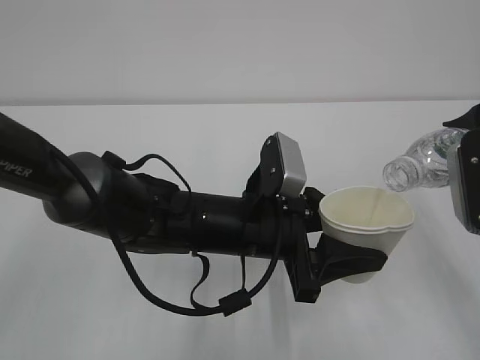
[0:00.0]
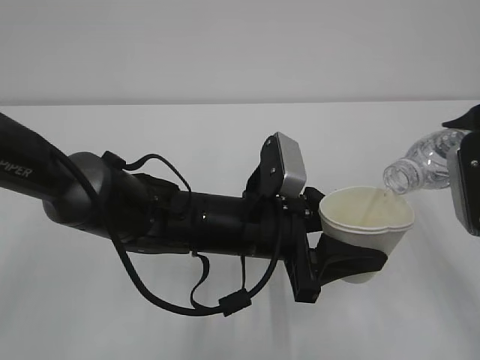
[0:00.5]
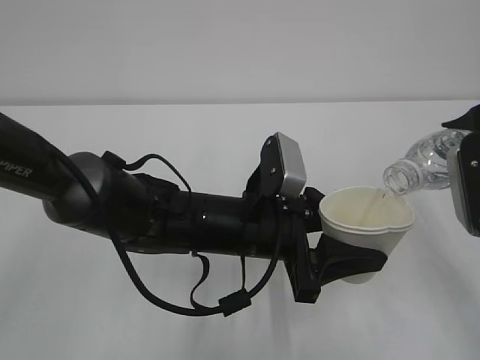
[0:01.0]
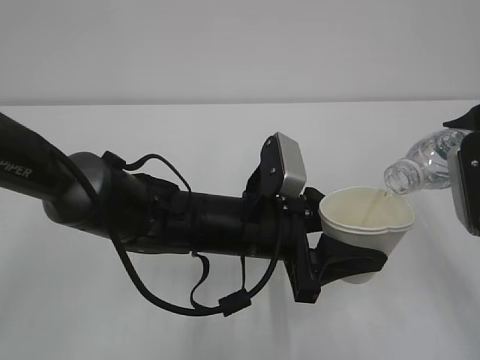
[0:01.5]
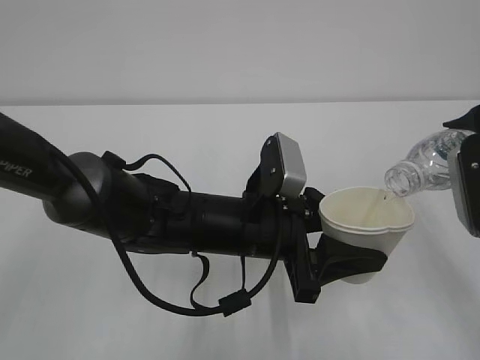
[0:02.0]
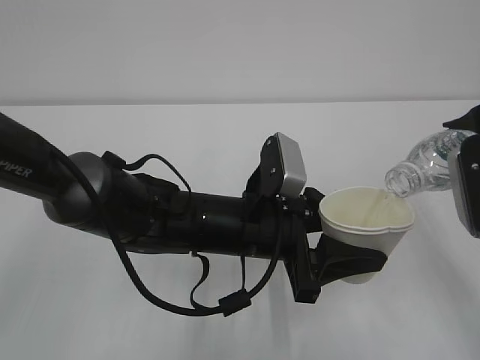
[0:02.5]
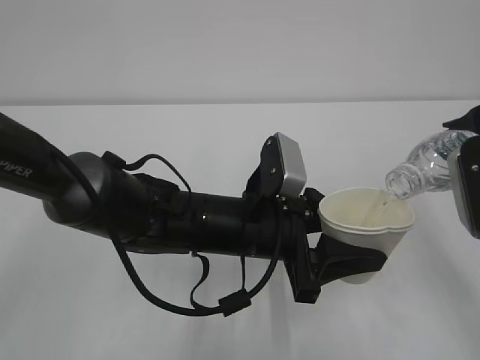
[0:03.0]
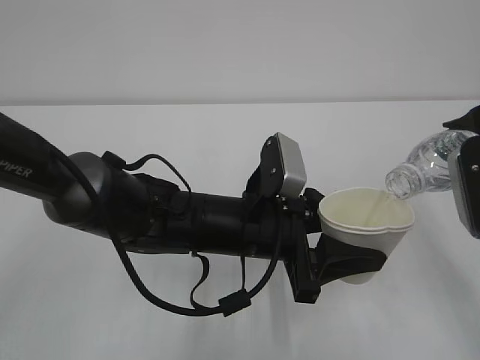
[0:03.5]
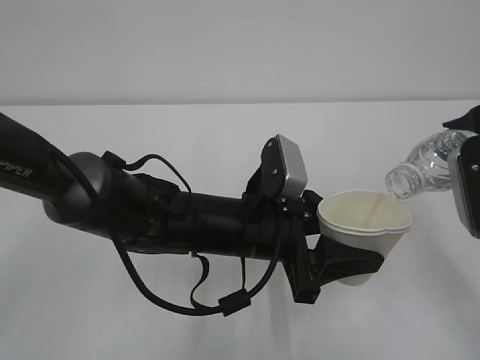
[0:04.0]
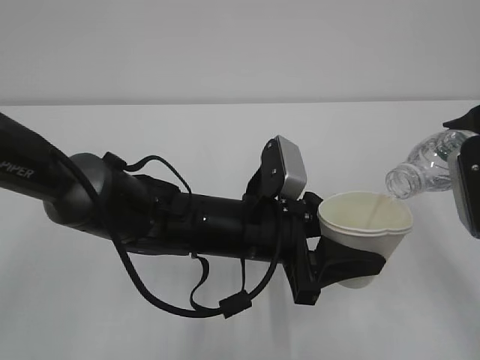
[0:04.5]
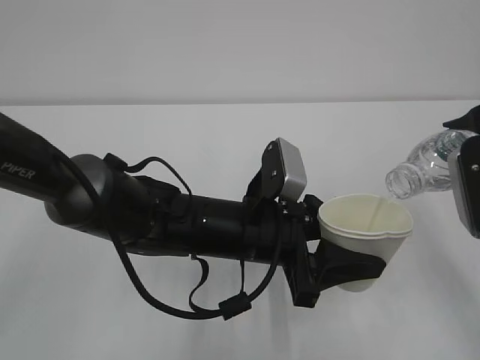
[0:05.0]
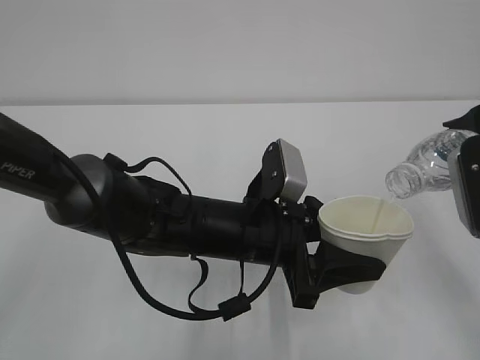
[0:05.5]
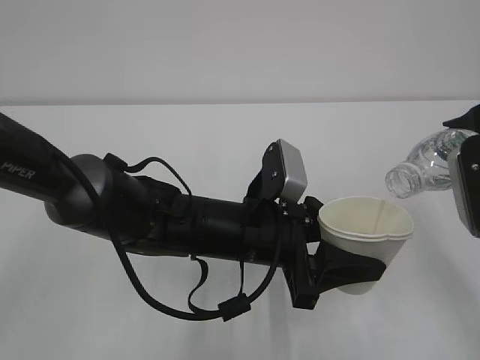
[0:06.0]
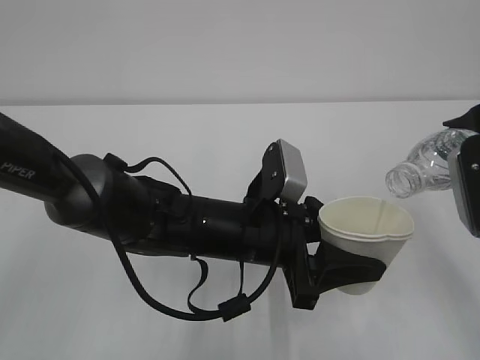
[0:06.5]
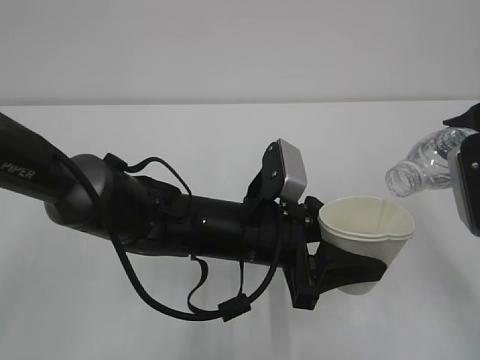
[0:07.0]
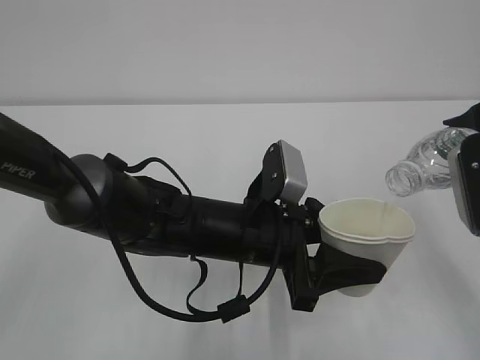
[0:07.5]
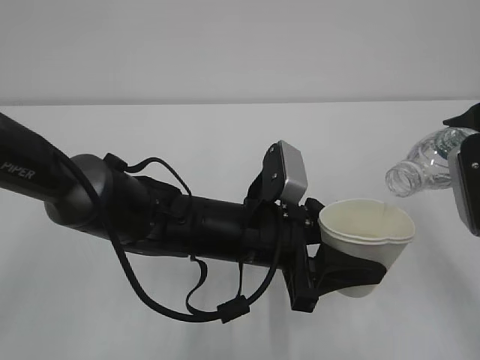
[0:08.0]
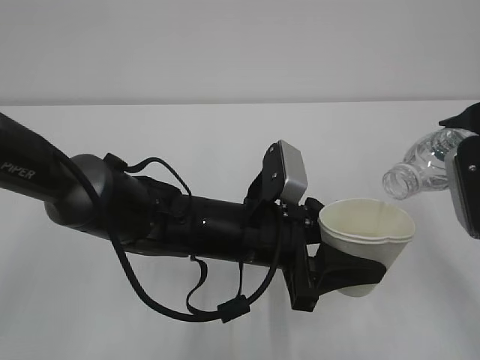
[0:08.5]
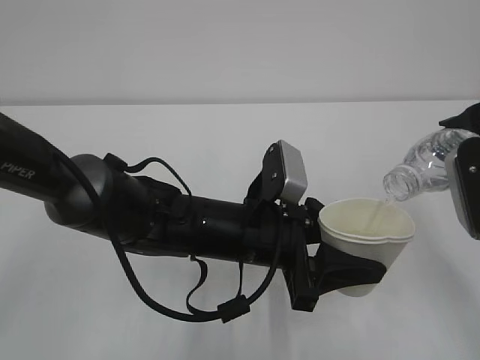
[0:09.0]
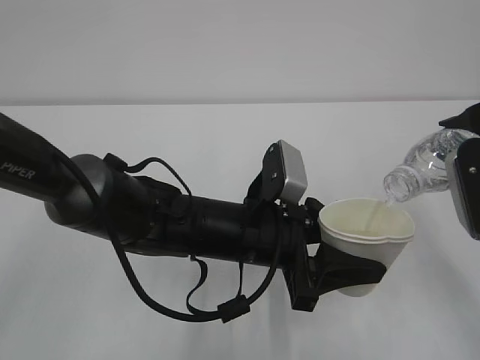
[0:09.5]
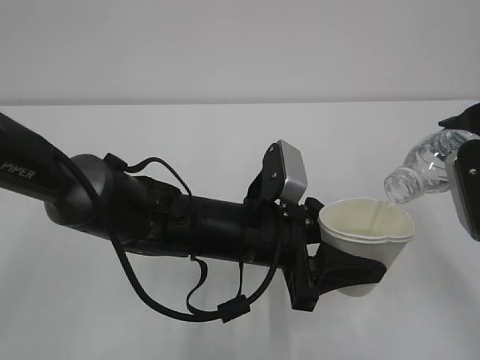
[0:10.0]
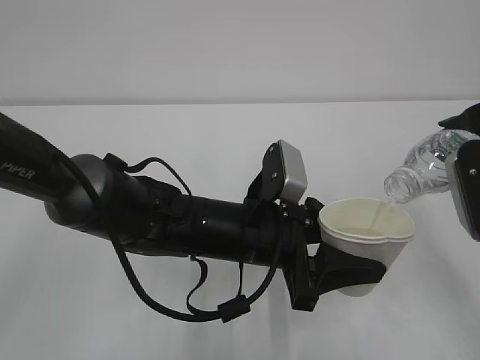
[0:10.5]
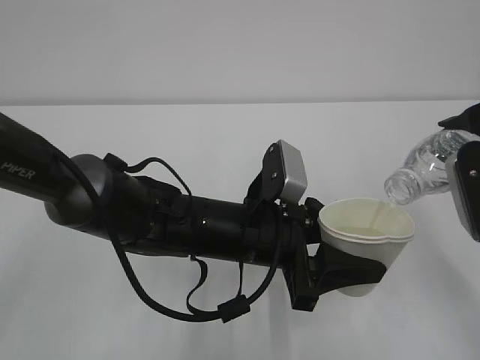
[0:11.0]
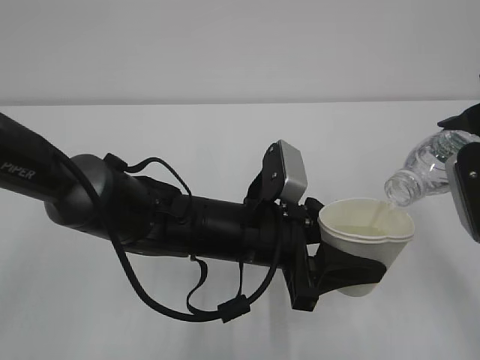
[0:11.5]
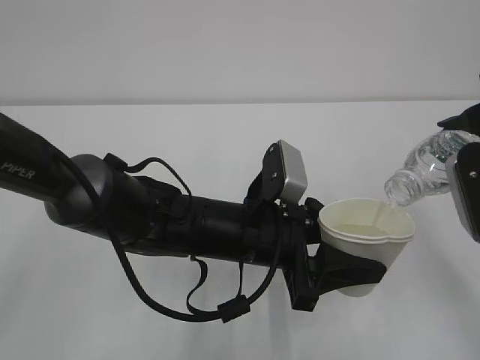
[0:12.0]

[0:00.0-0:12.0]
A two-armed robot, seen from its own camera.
0:00.0 to 0:08.0: Both grippers stay about where they are.
0:08.0 to 0:12.0: Neither gripper changes place.

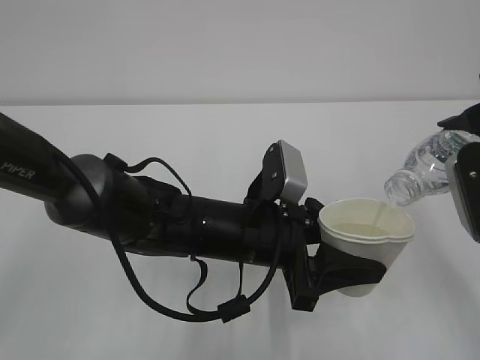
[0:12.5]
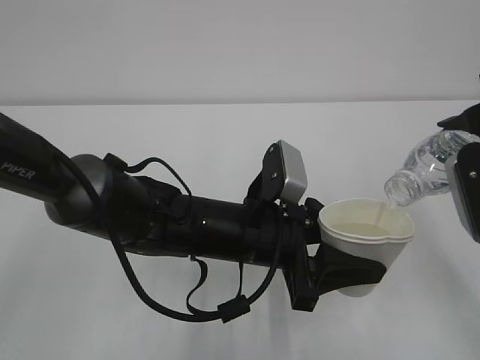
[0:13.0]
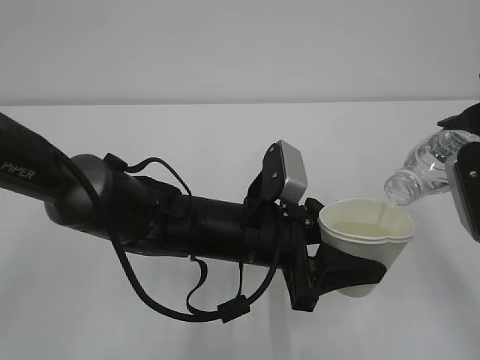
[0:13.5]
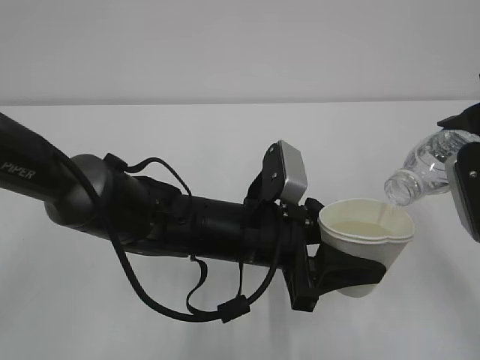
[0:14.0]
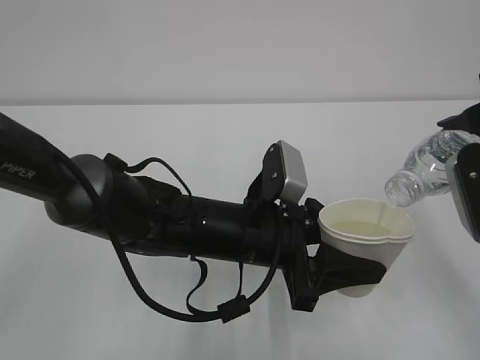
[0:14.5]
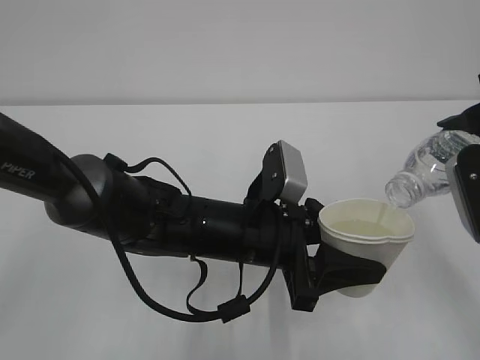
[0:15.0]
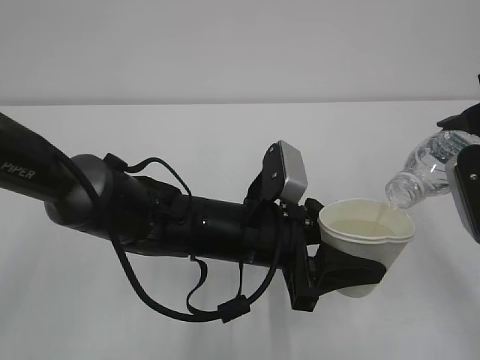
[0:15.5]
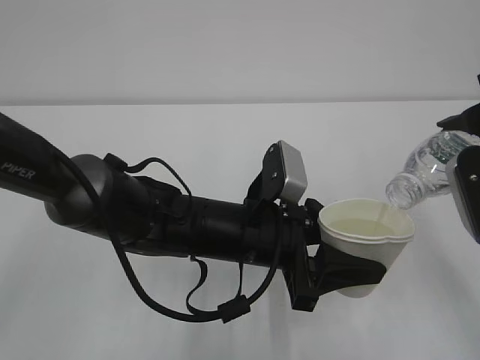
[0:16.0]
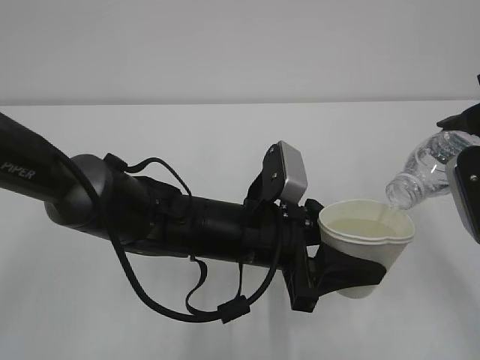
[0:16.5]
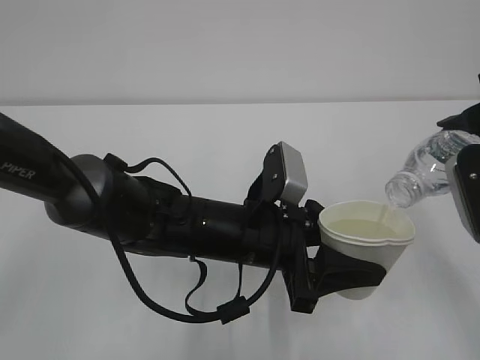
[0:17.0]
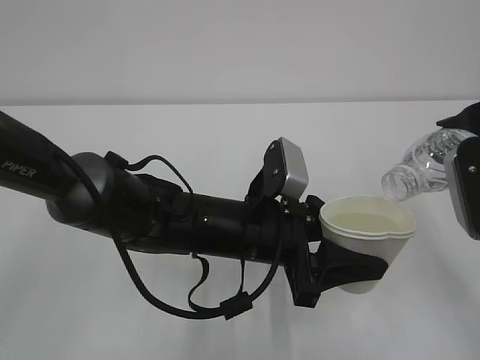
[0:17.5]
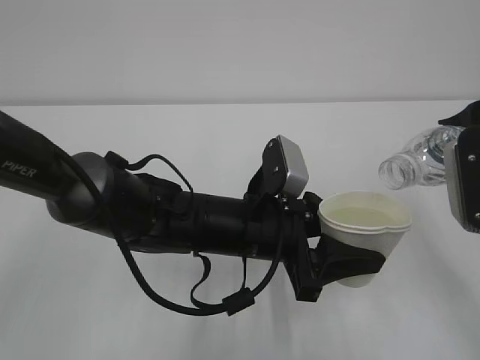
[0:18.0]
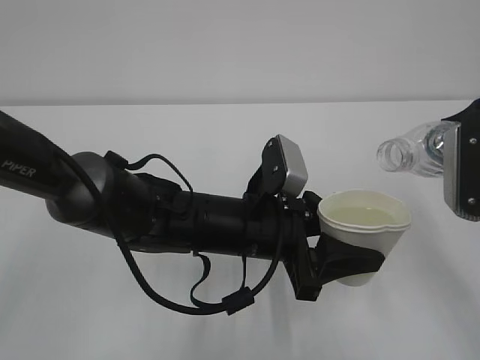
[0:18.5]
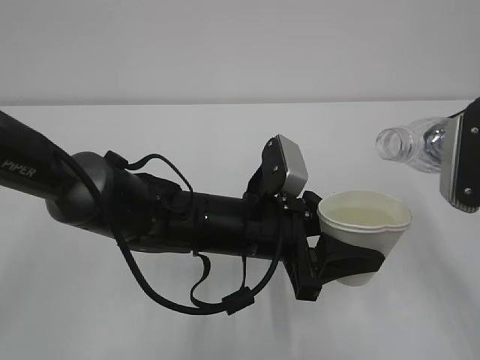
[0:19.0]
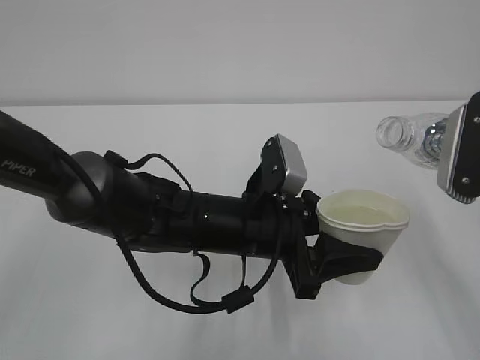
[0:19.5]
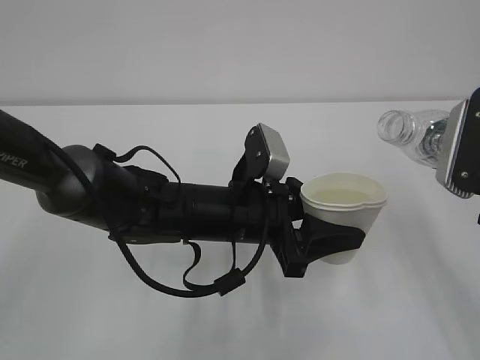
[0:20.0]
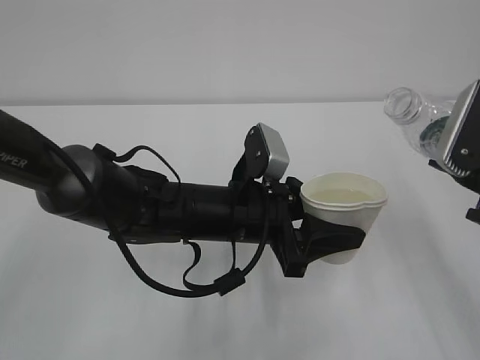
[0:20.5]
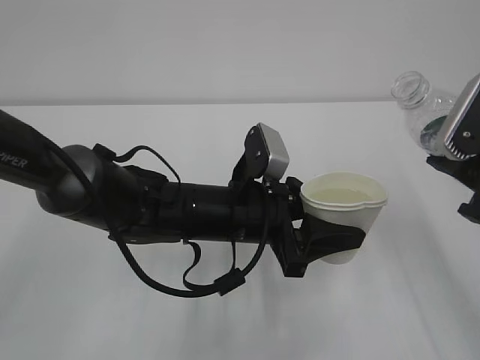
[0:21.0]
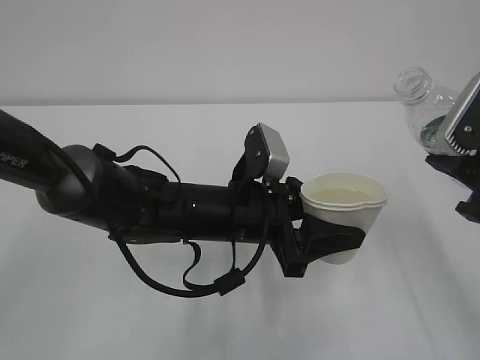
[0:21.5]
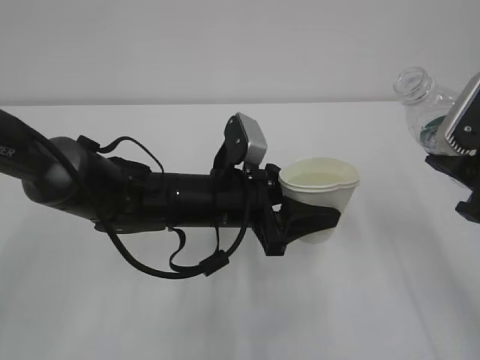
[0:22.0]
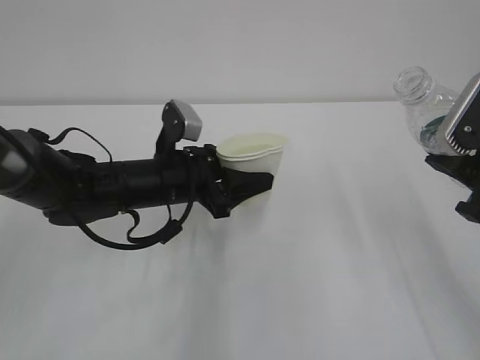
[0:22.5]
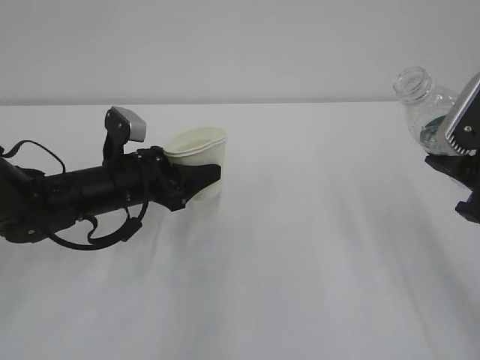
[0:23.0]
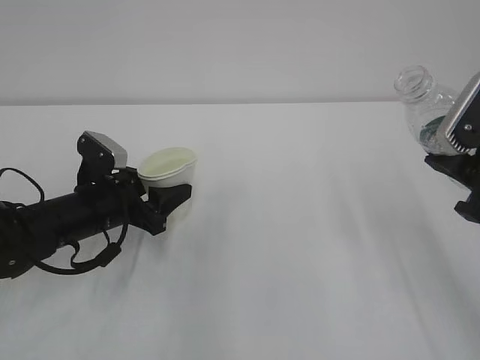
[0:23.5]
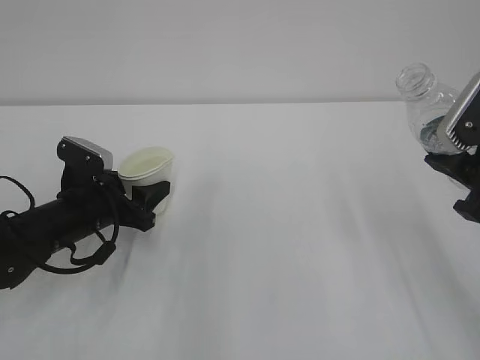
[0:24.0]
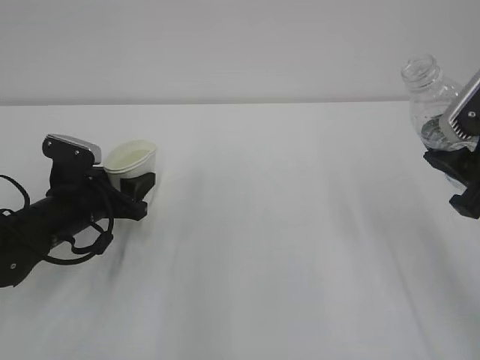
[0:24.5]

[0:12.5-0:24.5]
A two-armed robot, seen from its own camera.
0:12.5 to 0:16.5: Both grippers stay put.
0:20.5 to 0:22.5: The left gripper goes about 10 cm to the left and forward.
0:22.5 to 0:24.5: The left gripper is displaced to the left by some 10 cm.

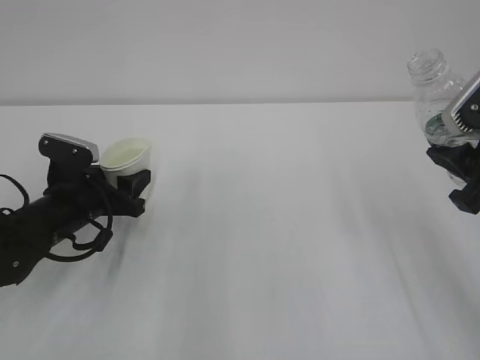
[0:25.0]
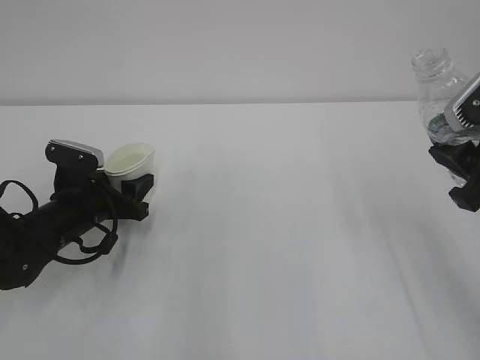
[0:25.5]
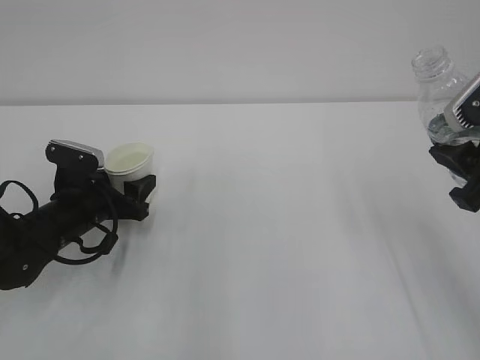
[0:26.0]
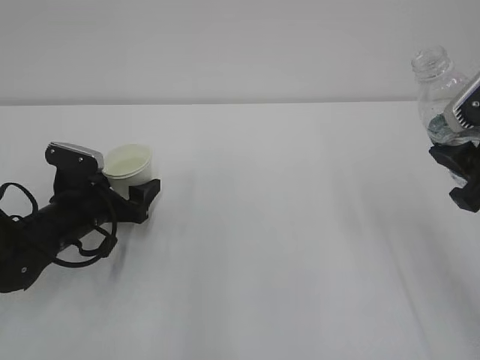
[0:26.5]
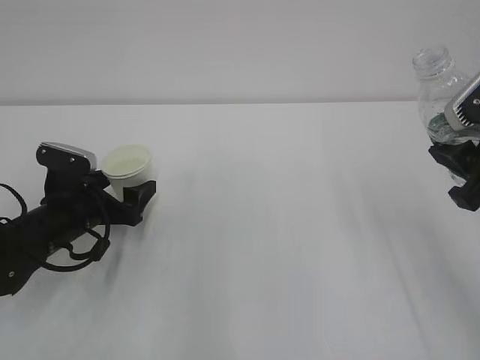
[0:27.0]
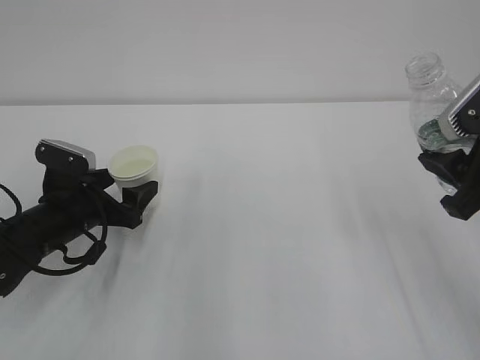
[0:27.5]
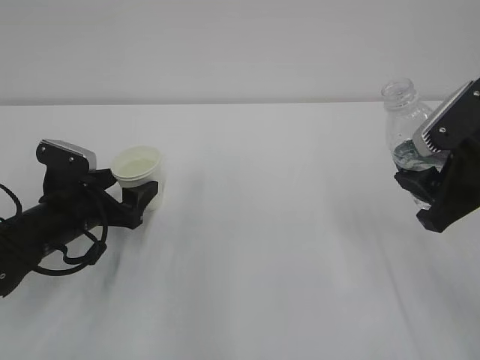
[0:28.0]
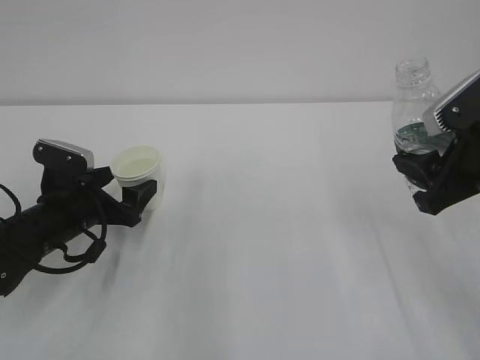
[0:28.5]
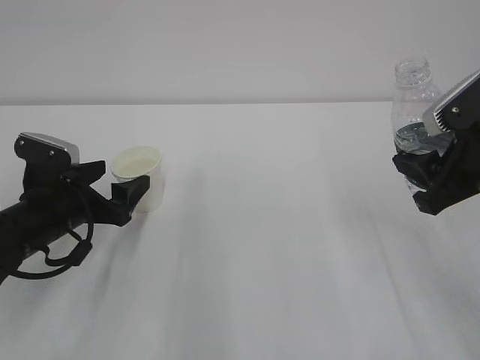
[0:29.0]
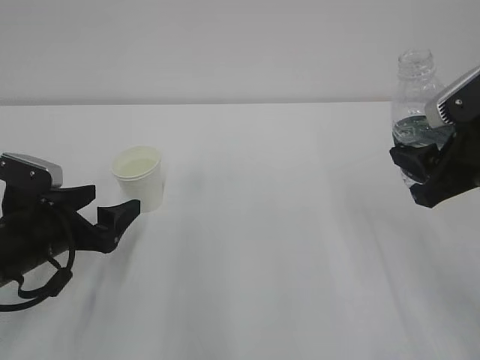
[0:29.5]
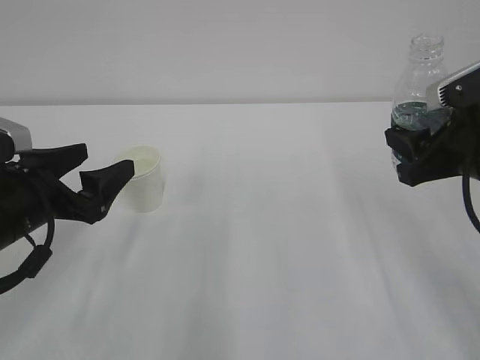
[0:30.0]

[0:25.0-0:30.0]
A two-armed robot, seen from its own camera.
0:25.0 to 0:27.5: The left gripper opens its fingers.
0:27.5 to 0:30.0: The right gripper ends up approximately 5 cm from where it was. The left gripper moves upward and backward, approximately 10 cm.
